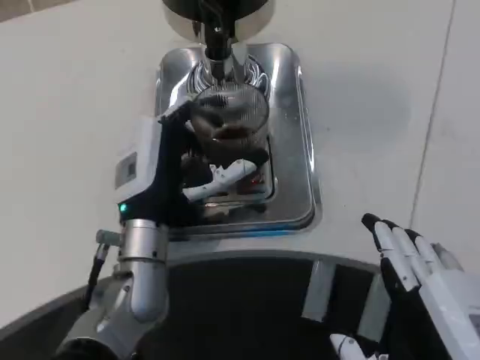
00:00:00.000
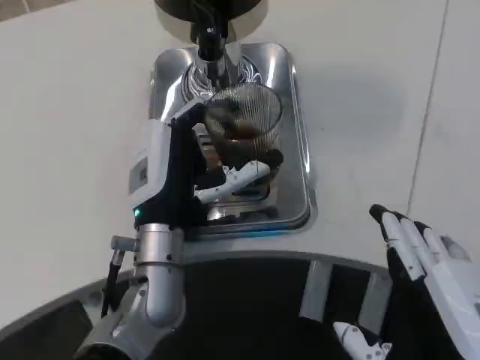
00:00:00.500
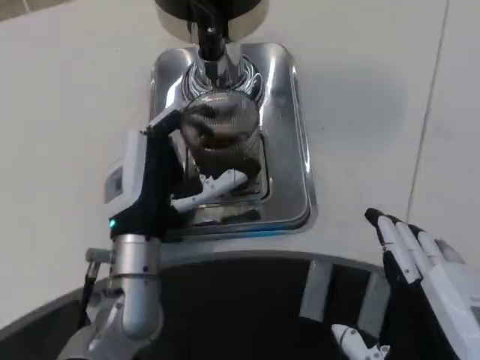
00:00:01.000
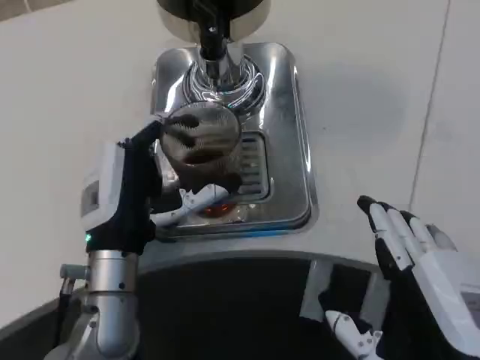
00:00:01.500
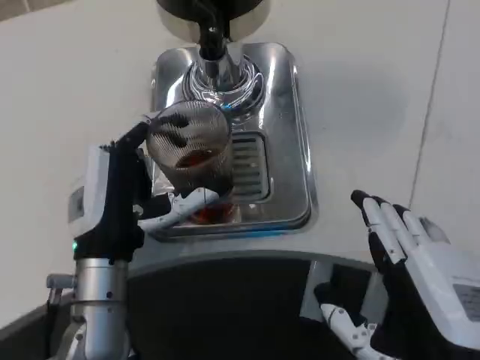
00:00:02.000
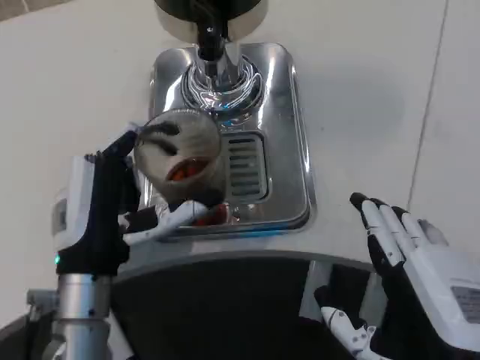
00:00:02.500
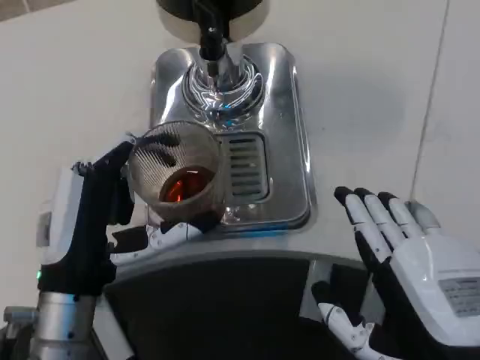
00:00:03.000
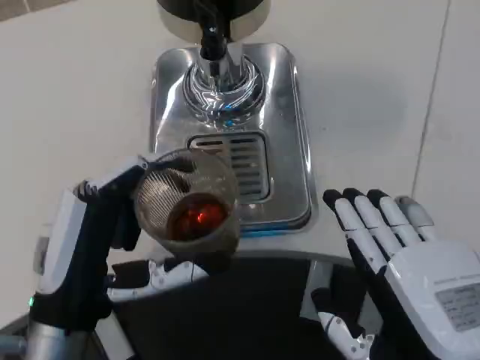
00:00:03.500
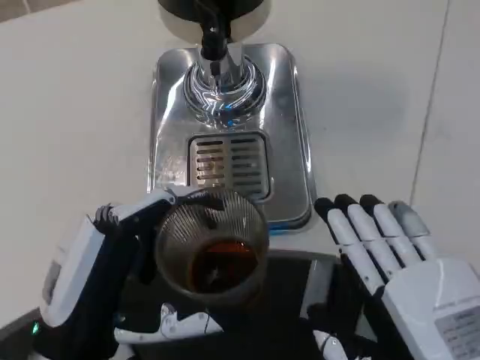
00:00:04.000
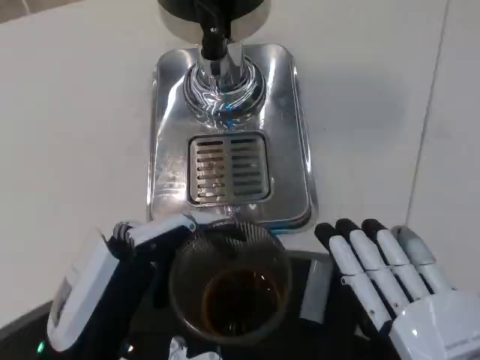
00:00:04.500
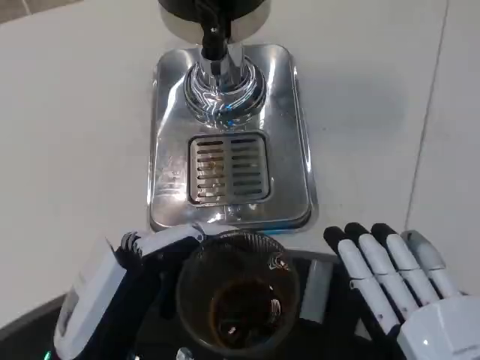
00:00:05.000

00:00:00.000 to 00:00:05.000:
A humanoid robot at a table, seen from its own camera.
Task of the whole recording: Grasp the cup under the faucet to collect the drink, then remove the cup.
00:00:00.000 to 00:00:02.500: The left hand heads backward and to the left, covering some 10 cm.
00:00:02.500 to 00:00:05.000: The left hand moves backward, approximately 10 cm.
